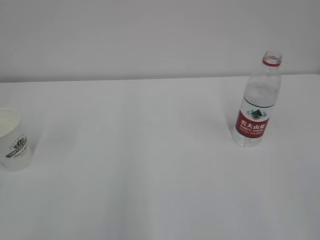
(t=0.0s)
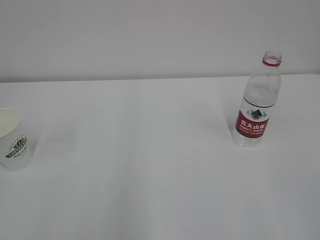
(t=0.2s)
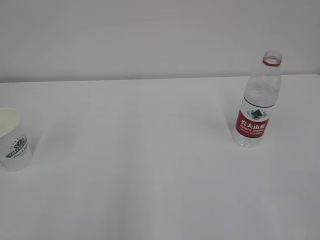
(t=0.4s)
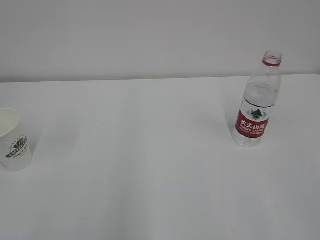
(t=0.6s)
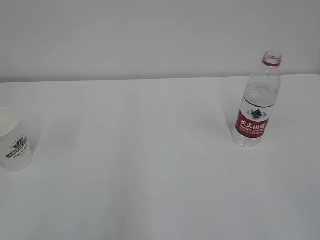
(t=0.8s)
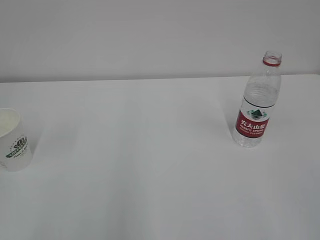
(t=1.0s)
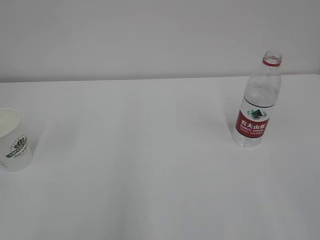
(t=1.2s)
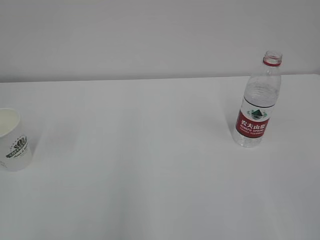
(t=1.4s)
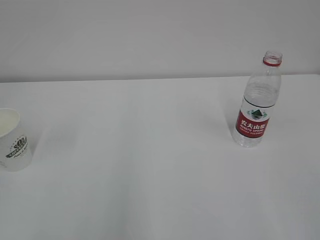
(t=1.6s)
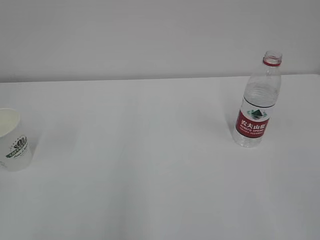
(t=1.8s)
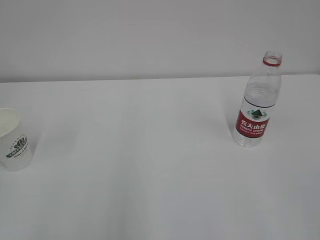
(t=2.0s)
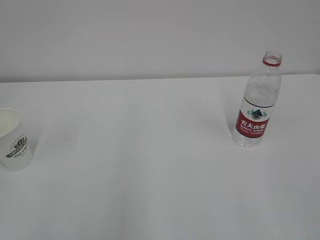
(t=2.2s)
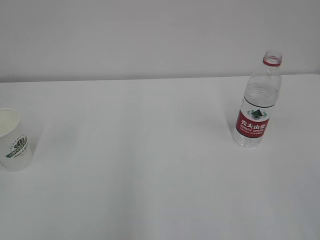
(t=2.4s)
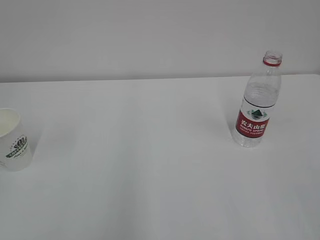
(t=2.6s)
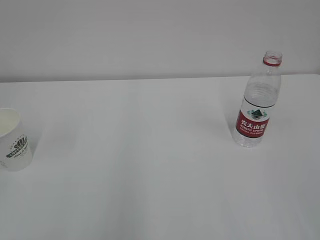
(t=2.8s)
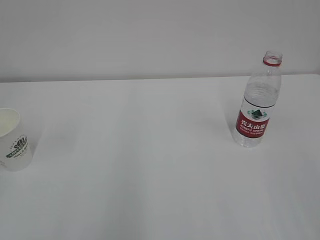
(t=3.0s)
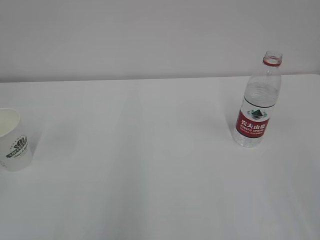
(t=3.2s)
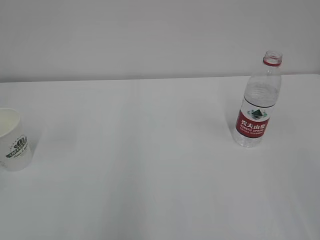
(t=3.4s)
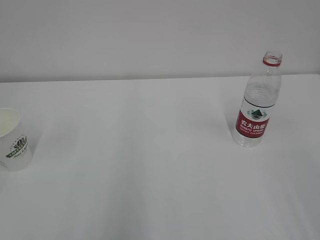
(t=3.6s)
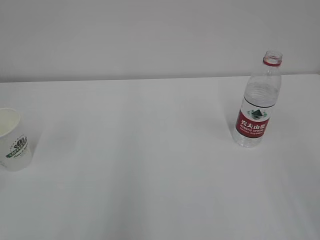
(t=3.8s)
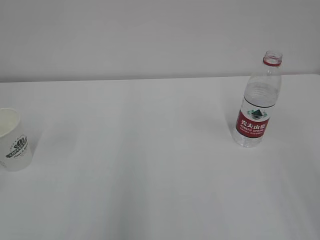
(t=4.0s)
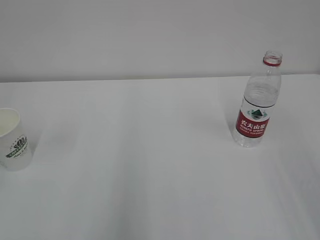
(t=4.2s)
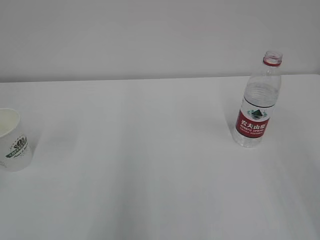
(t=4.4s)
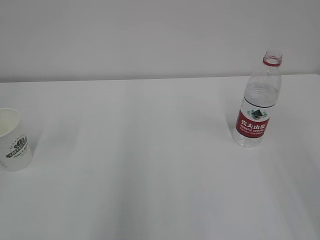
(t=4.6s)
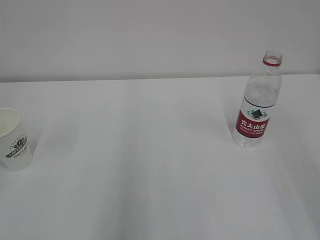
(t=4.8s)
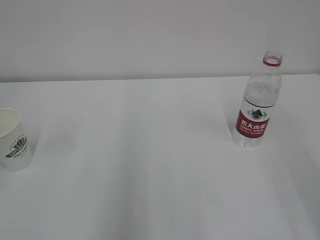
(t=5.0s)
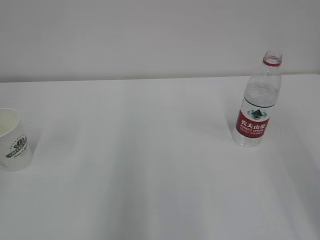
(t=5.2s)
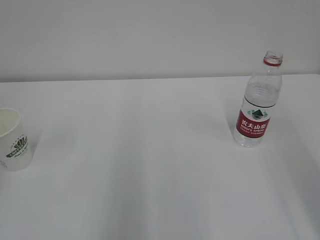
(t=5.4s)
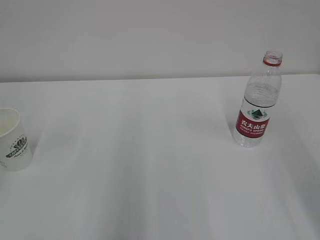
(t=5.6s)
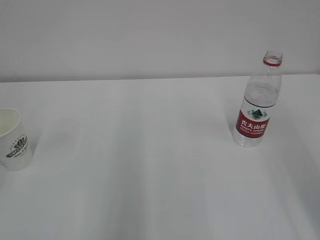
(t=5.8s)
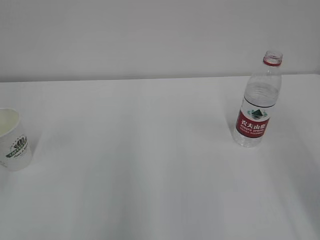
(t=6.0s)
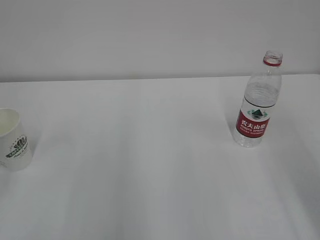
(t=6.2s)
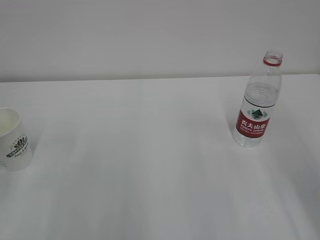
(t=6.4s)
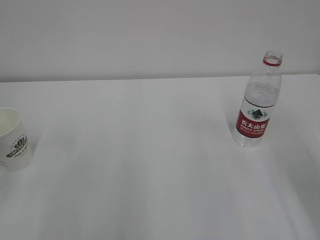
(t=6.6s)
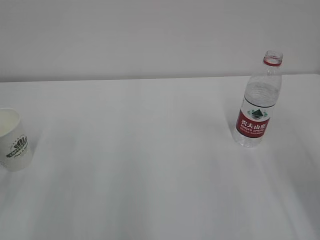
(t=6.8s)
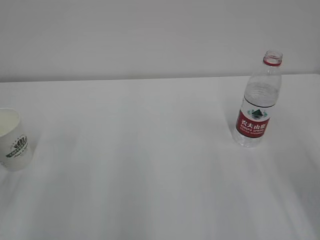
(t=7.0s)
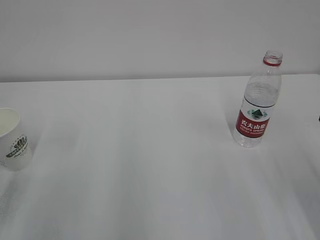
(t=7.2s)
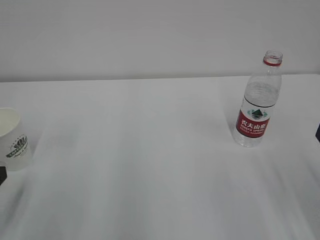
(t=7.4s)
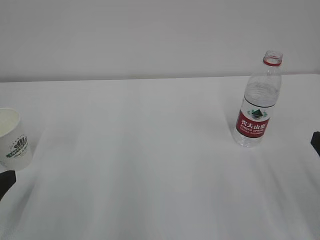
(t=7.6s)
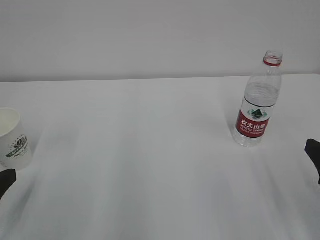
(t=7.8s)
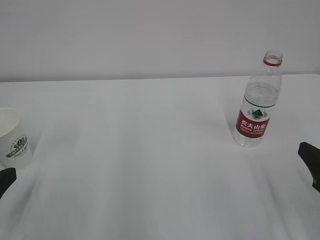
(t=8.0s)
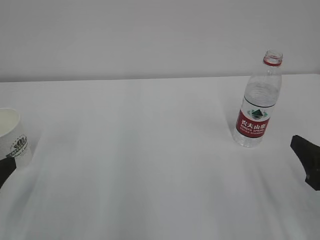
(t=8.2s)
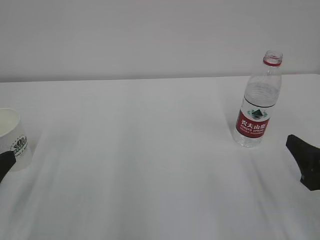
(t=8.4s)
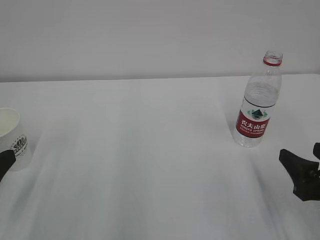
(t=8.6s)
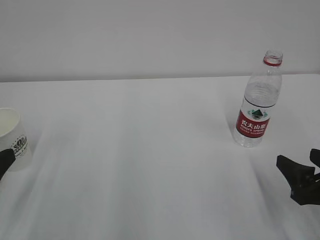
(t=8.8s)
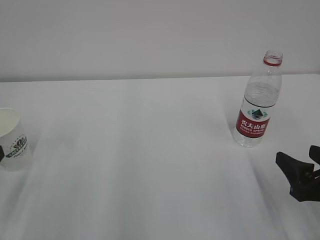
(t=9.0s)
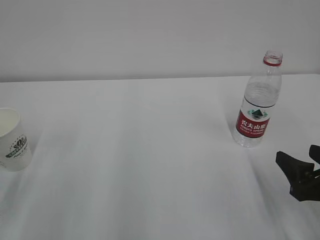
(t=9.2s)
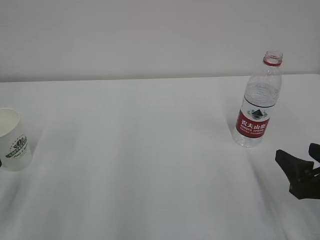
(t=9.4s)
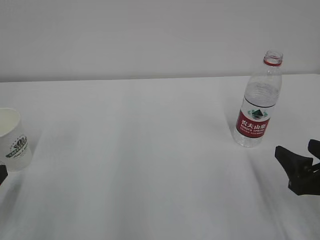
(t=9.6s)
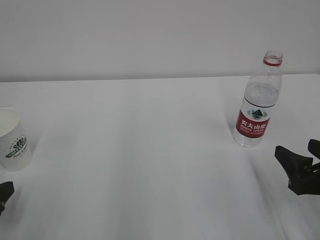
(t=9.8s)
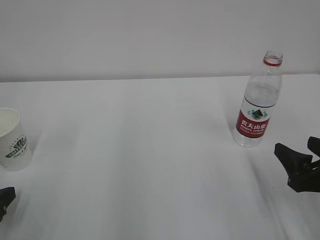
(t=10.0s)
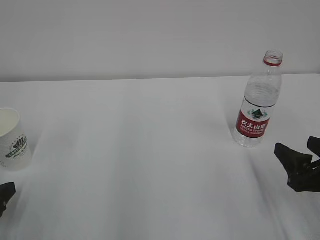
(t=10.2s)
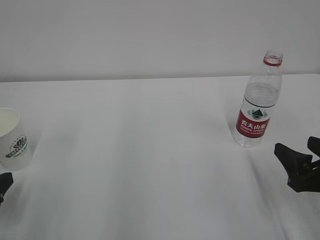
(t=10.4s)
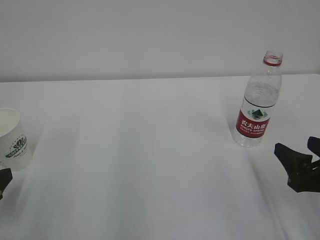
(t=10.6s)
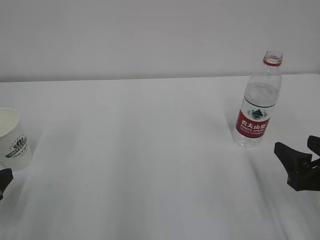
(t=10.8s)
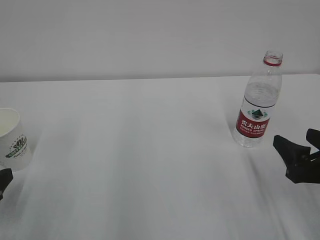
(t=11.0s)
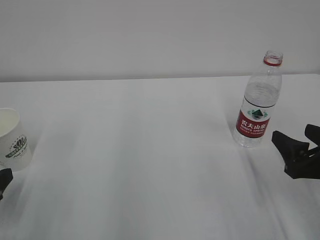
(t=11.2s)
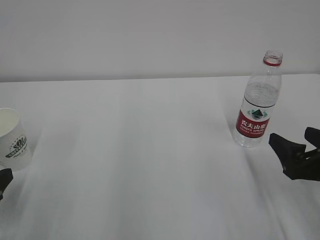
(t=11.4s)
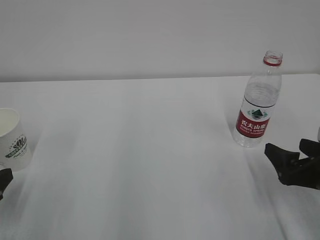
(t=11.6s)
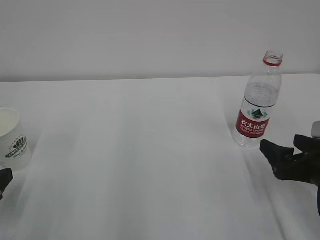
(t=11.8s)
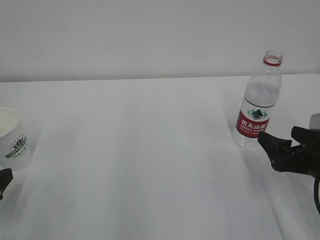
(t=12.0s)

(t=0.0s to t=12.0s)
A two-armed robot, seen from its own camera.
t=6.0s - t=7.6s: The left gripper heads downward, covering approximately 15 cm.
t=7.6s - t=9.0s: The right gripper goes about 5 cm downward.
t=9.0s - t=10.4s: The left gripper heads downward, covering about 5 cm.
t=10.4s - t=12.0s: The right gripper opens up.

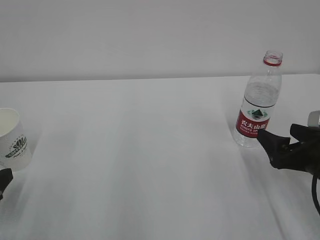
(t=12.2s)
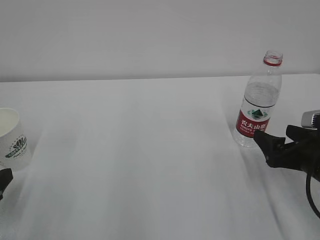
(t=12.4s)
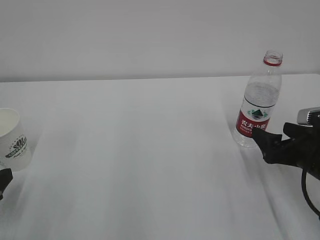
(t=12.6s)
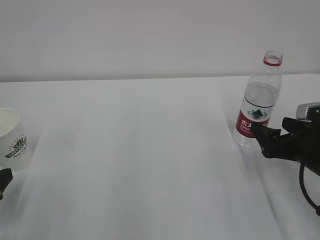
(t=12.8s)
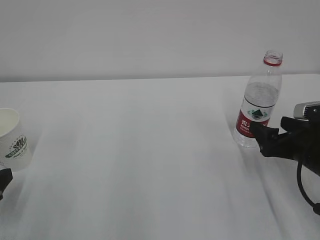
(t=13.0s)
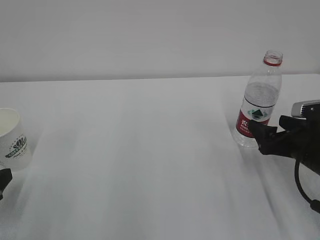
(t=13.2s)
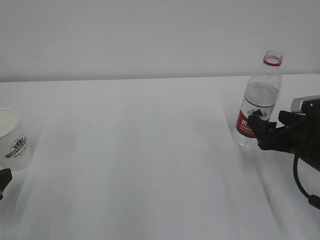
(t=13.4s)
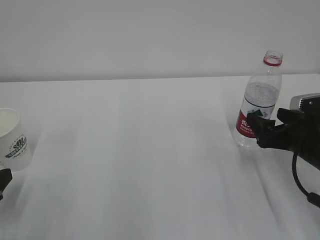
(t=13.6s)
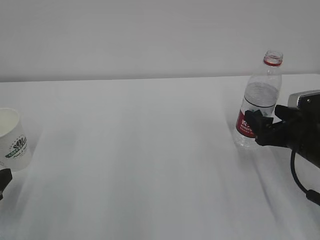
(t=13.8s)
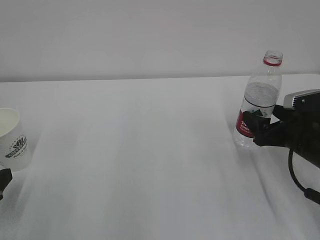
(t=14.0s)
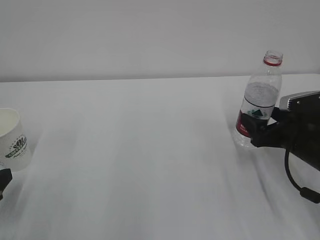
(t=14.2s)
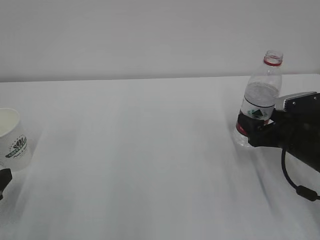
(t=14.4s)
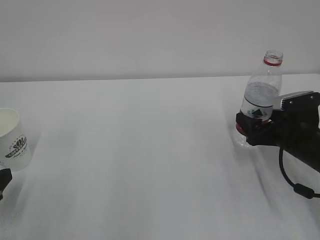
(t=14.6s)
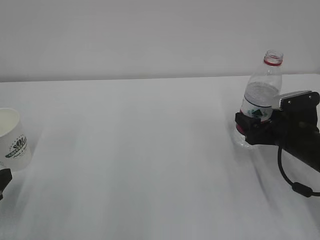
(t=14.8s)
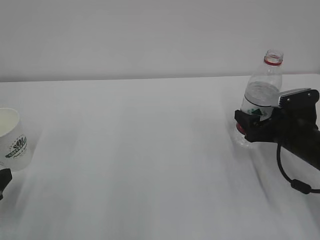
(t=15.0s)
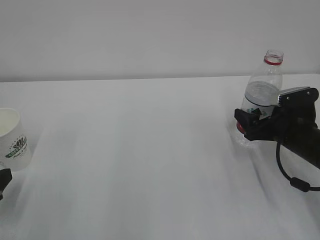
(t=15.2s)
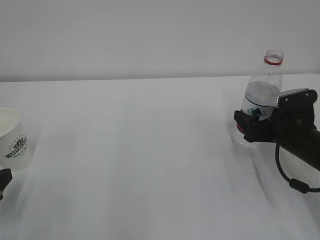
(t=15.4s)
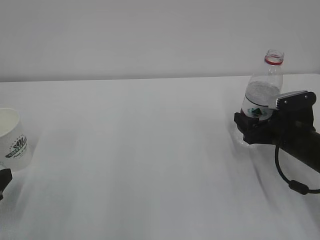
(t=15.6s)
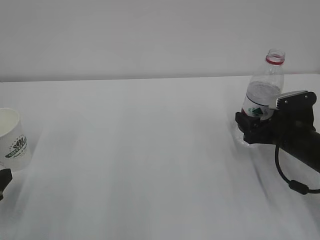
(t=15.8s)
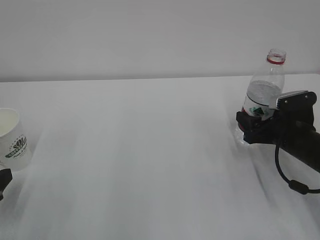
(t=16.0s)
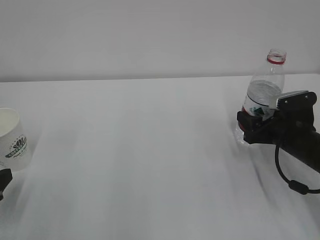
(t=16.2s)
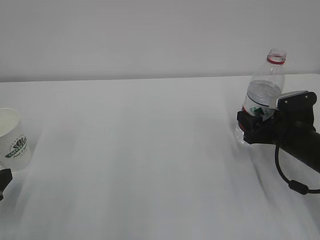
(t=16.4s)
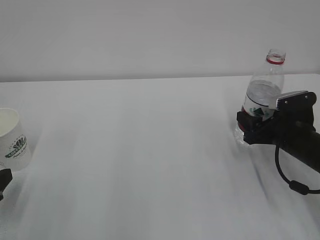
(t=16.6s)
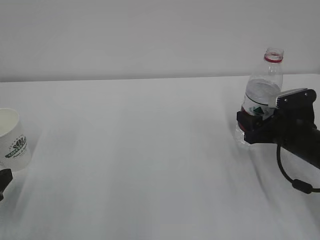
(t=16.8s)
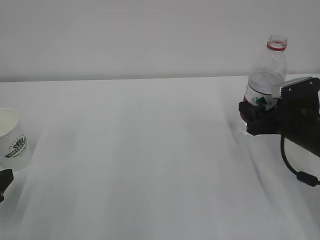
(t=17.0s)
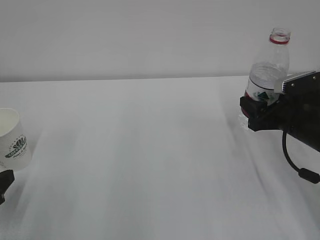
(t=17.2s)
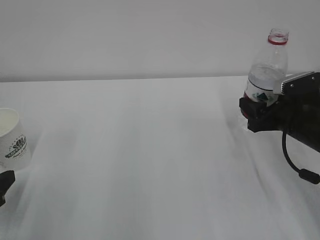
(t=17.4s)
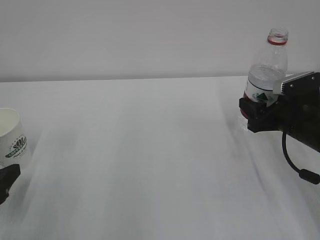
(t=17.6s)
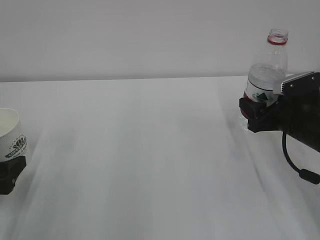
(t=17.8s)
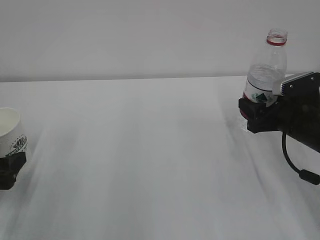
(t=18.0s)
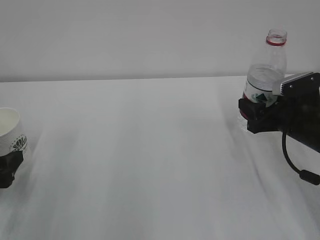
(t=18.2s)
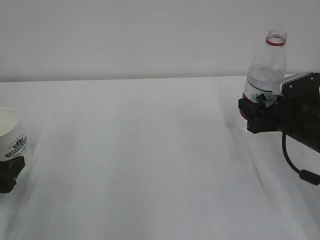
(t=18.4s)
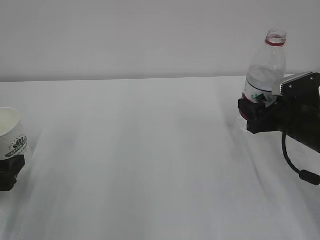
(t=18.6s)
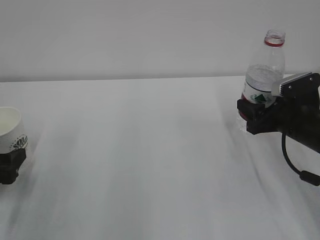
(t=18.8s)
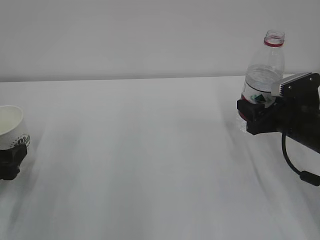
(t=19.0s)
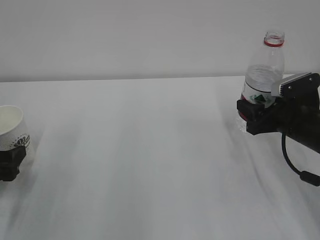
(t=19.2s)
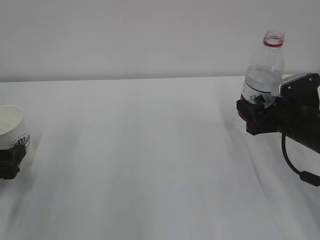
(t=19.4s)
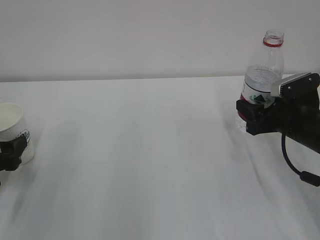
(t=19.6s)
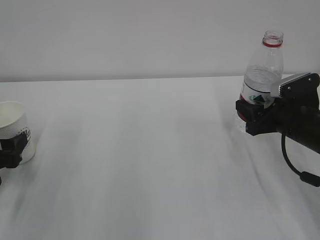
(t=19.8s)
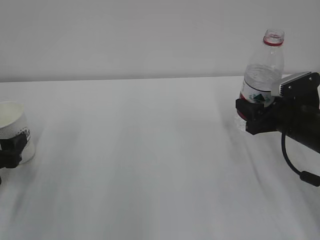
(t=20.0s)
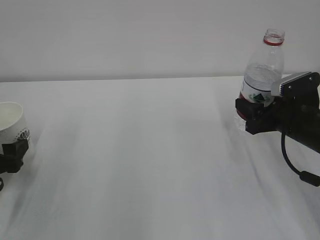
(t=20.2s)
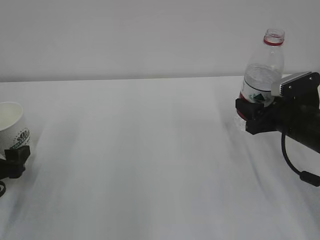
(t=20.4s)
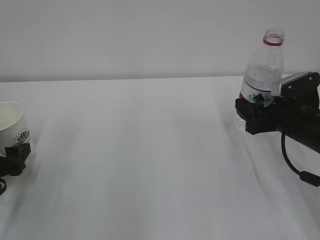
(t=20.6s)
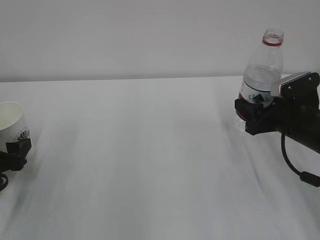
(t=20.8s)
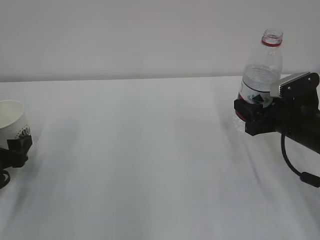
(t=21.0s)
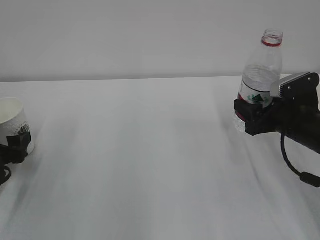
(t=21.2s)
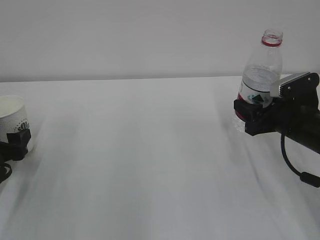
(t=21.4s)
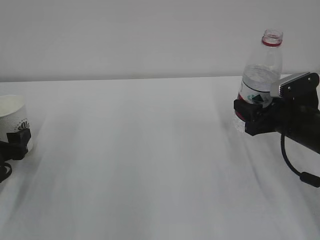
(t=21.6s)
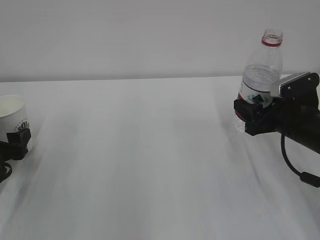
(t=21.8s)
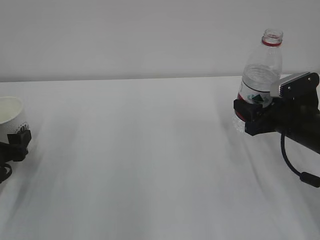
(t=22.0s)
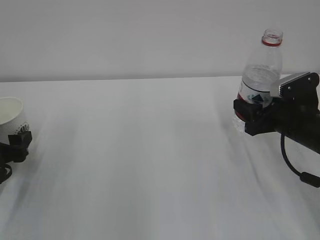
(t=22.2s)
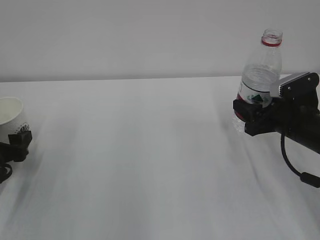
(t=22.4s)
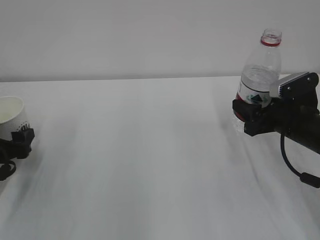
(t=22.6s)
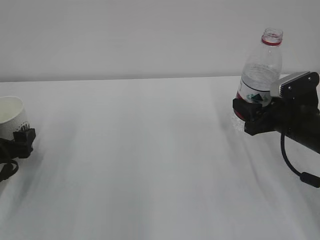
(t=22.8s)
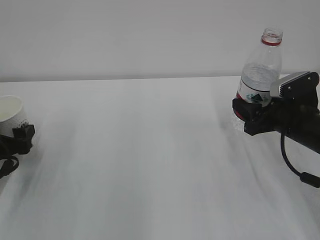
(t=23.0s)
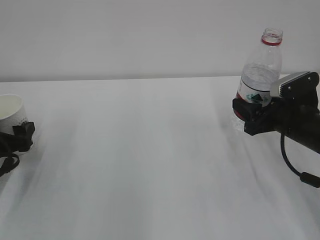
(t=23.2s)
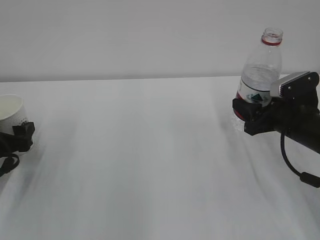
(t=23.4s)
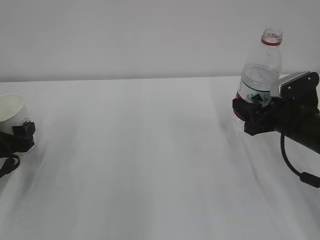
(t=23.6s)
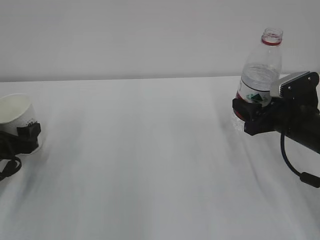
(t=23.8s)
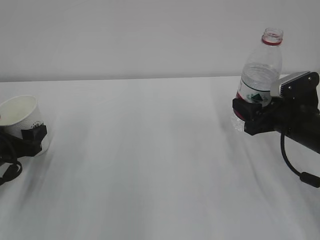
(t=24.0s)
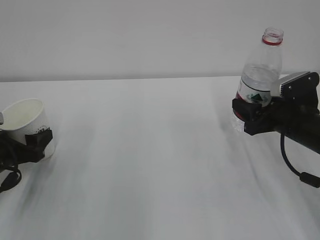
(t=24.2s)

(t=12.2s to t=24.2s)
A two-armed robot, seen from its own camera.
t=12.2s - t=13.8s: The right gripper goes roughly 5 cm forward.
t=13.8s - t=15.2s: The grippers move only a little.
t=15.2s - t=16.6s: The right gripper closes.
t=16.6s - t=18.2s: The left gripper opens its fingers.
t=18.2s - t=21.2s: There are only small adjustments of the grippers.
t=21.2s - t=22.6s: Neither gripper changes place.
t=22.6s - t=24.2s: The left gripper closes.
